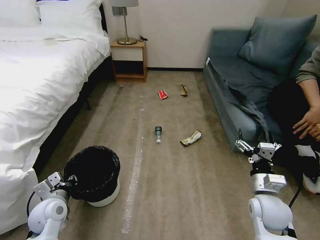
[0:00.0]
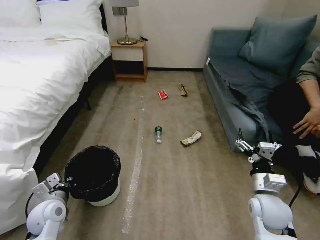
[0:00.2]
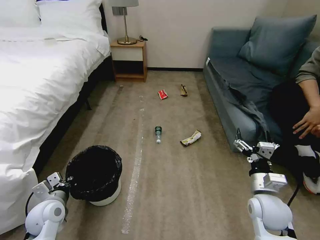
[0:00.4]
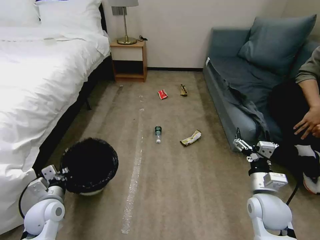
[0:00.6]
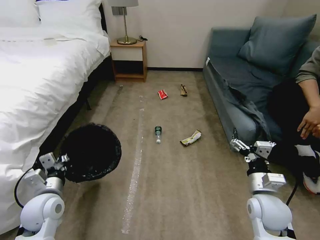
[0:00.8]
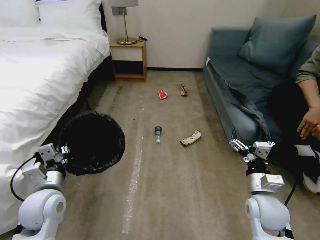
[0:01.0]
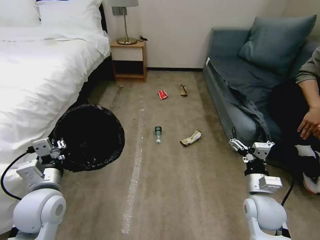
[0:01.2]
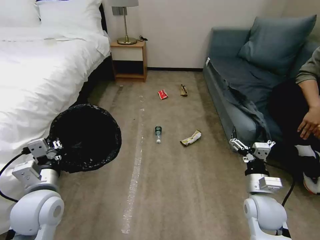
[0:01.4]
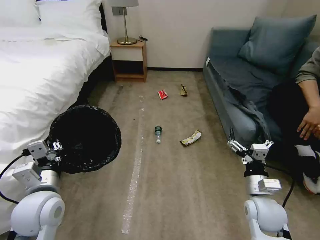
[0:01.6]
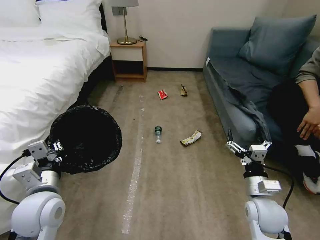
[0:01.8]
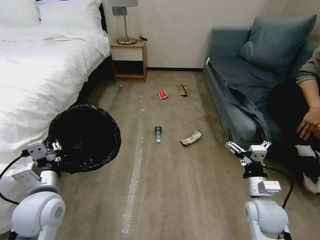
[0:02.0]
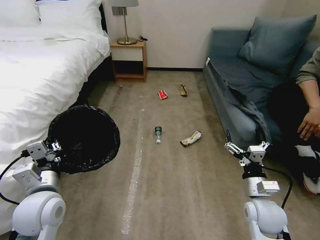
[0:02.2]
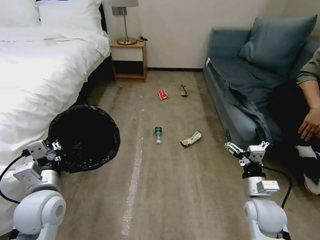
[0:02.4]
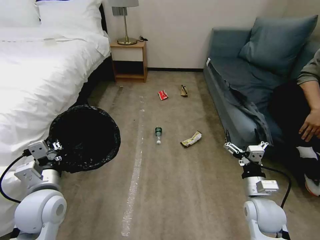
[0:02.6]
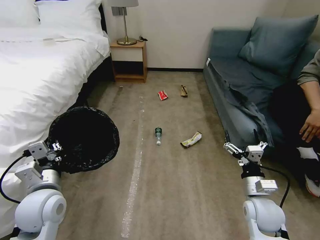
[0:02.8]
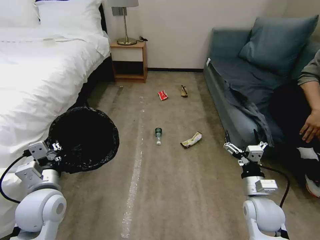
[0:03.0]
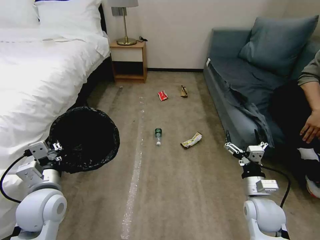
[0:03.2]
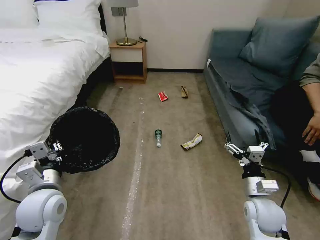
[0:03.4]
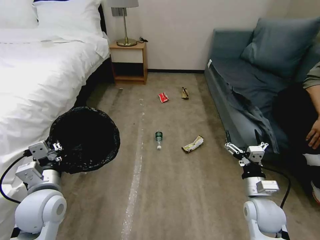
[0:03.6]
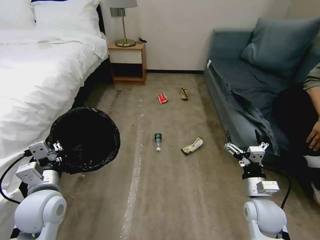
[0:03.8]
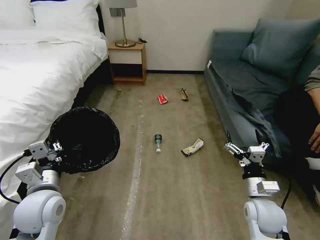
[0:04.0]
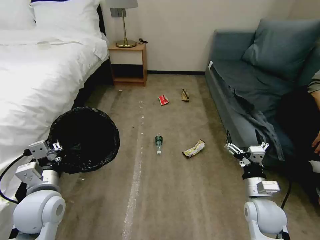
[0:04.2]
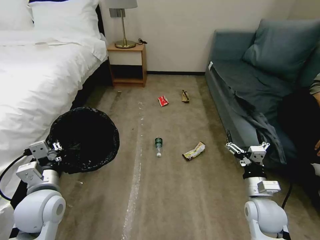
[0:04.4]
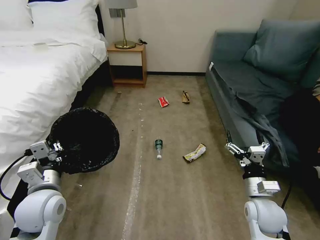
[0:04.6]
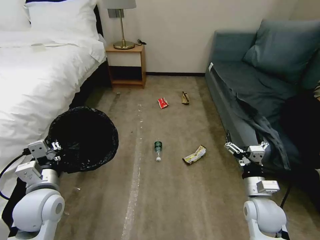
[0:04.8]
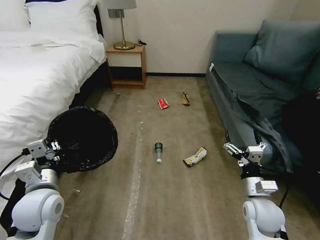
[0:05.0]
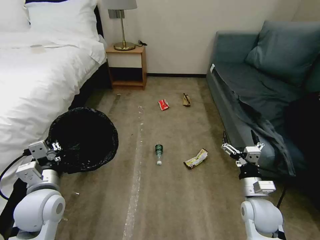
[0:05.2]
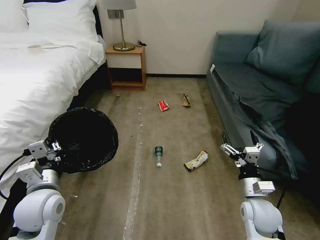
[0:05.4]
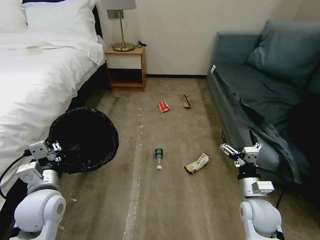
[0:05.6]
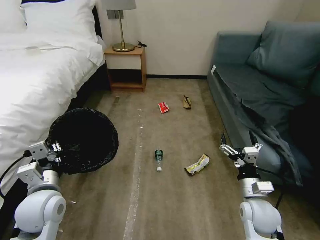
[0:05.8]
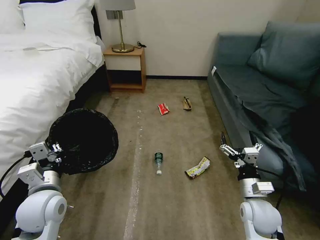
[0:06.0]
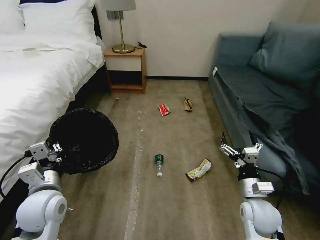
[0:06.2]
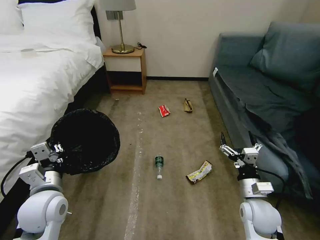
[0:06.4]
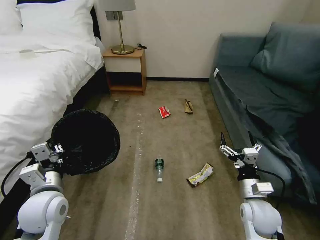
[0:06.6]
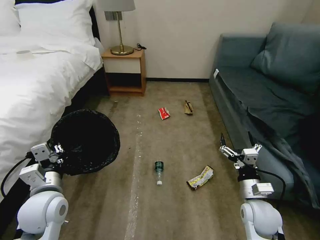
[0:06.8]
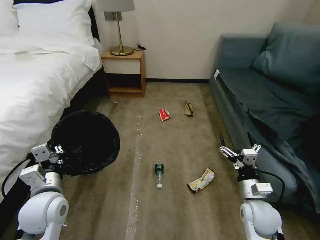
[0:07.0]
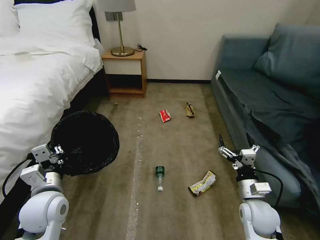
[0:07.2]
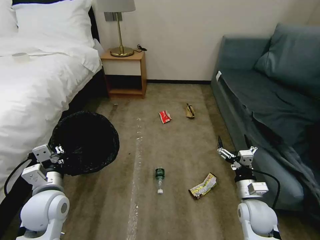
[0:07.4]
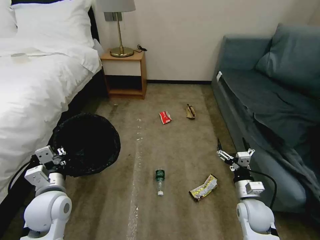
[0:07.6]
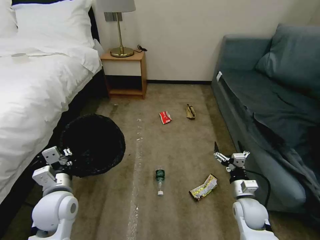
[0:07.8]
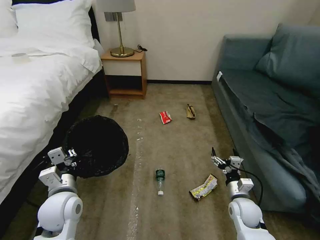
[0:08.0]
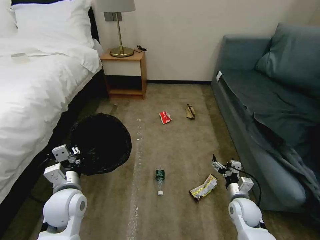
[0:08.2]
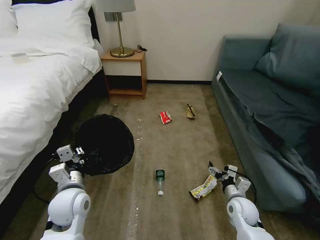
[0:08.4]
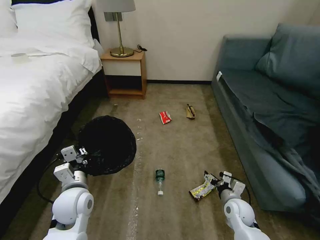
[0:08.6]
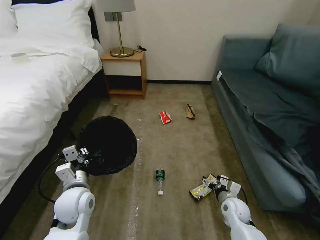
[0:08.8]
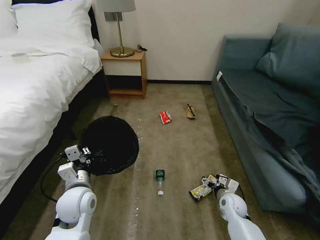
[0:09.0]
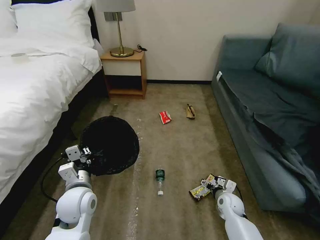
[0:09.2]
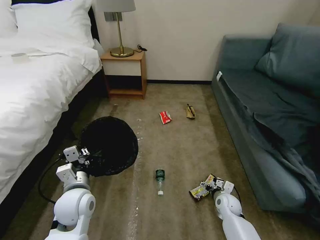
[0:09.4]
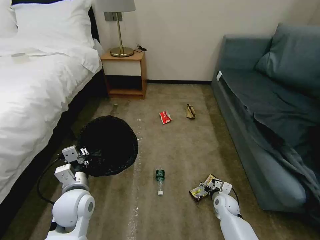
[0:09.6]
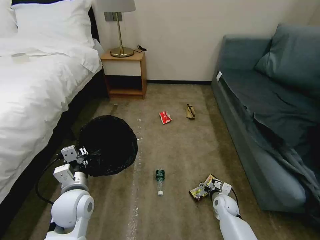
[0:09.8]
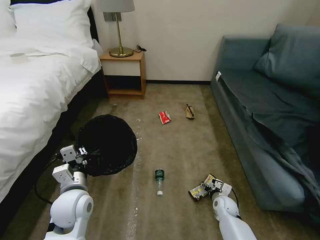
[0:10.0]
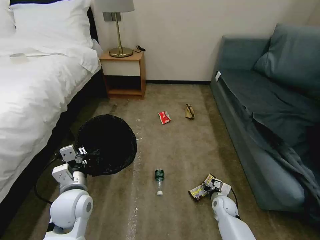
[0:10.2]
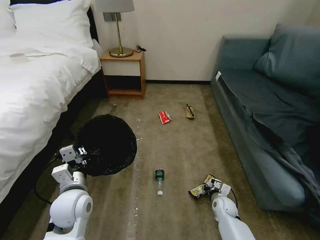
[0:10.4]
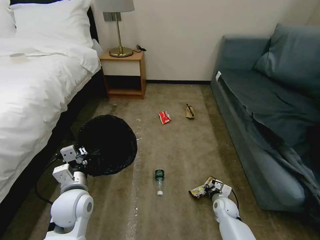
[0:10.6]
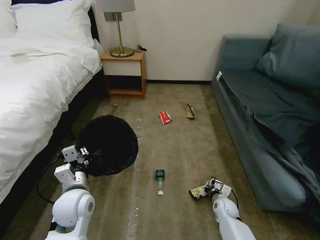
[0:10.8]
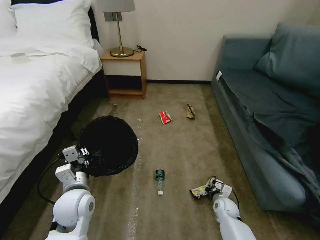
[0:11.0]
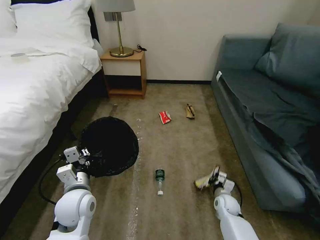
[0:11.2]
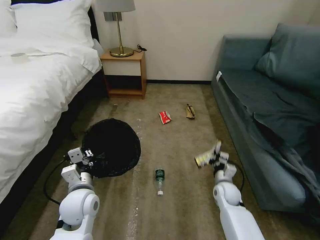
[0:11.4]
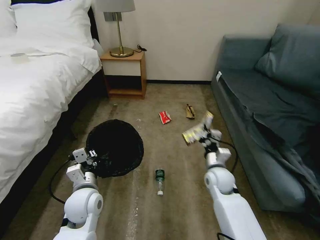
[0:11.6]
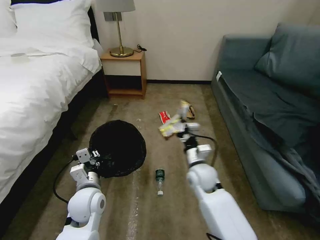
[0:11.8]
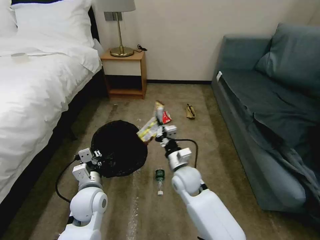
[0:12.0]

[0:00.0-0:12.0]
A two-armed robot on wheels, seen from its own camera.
Task of the whole recording: Pick up the trash bin, then pick up the garbage on the floor and place it into the trash bin.
0:00.0 to 0:01.6: The left gripper travels upward and to the right by some 15 cm.
0:01.6 to 0:03.0: The grippers make only small movements.
0:03.0 to 0:04.4: Both grippers stay put.
0:07.6 to 0:09.0: The left gripper moves to the right, about 5 cm, while the right gripper goes approximately 10 cm downward and forward.
0:09.0 to 0:10.4: The right gripper moves downward, some 5 cm, and closes.
0:10.4 to 0:12.0: The right gripper shifts some 30 cm upward and to the left, and closes up, while the left gripper moves about 5 cm.

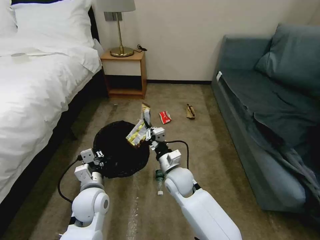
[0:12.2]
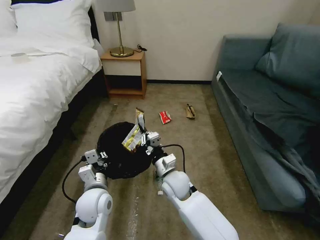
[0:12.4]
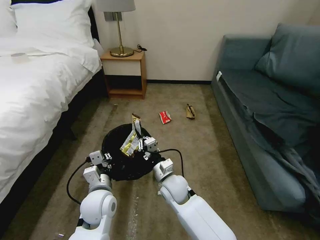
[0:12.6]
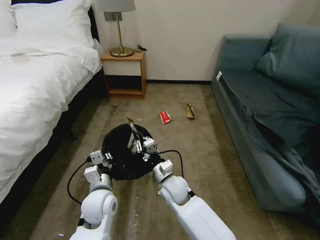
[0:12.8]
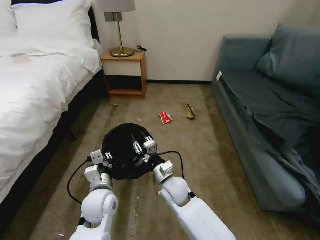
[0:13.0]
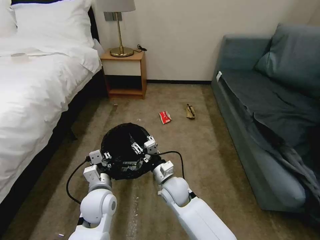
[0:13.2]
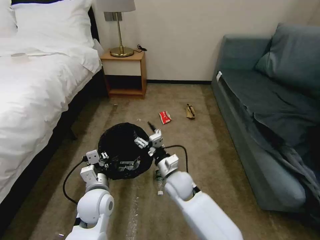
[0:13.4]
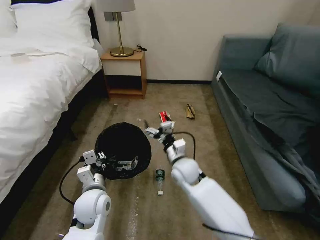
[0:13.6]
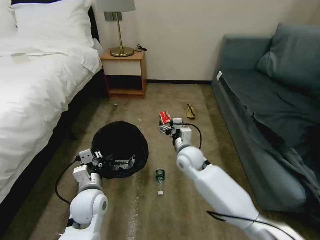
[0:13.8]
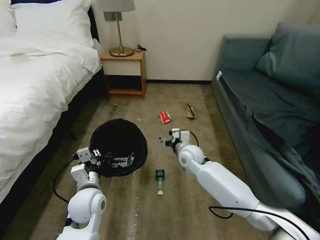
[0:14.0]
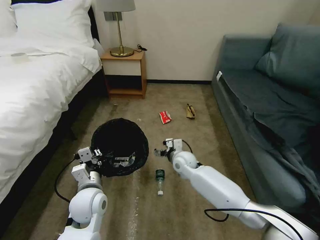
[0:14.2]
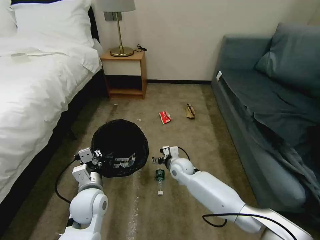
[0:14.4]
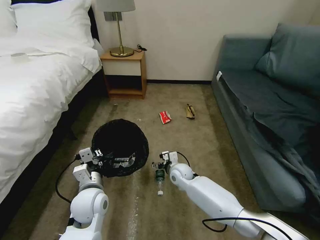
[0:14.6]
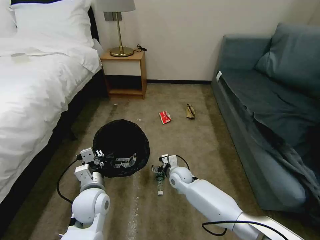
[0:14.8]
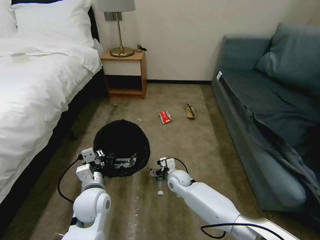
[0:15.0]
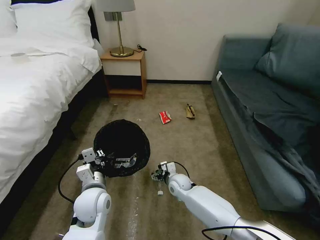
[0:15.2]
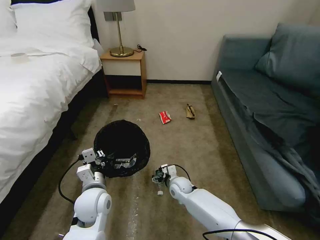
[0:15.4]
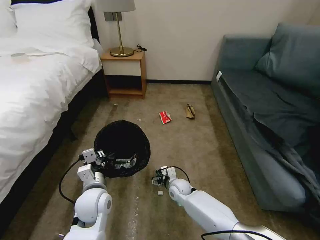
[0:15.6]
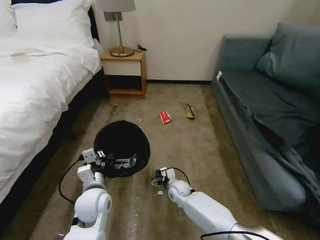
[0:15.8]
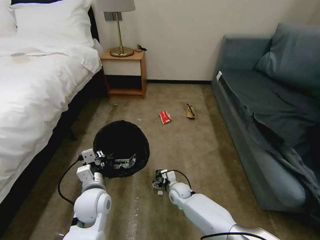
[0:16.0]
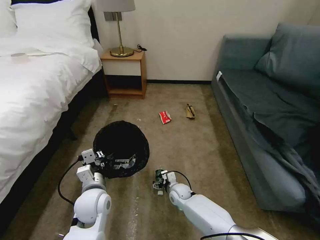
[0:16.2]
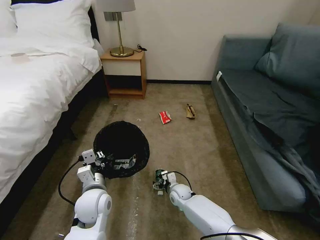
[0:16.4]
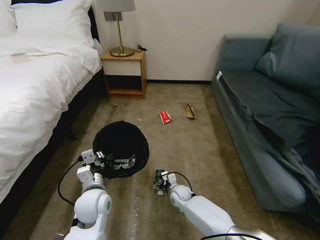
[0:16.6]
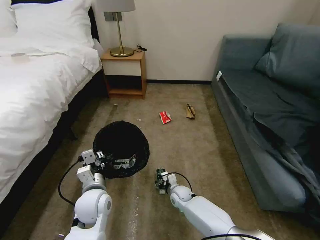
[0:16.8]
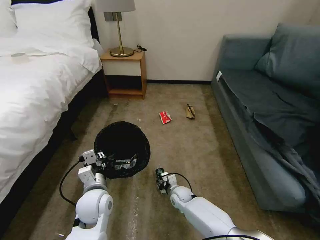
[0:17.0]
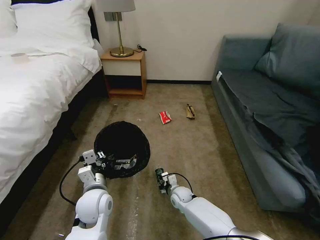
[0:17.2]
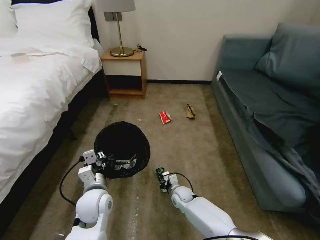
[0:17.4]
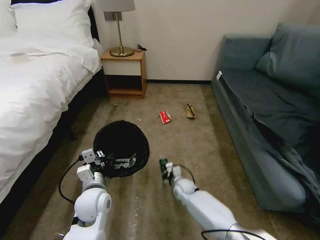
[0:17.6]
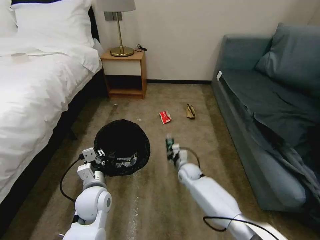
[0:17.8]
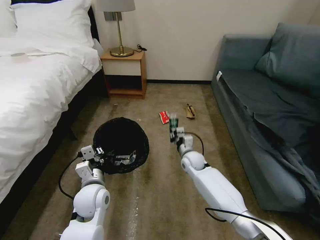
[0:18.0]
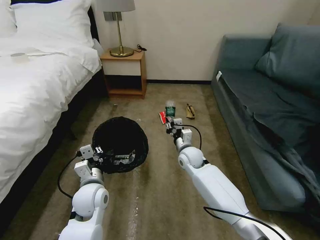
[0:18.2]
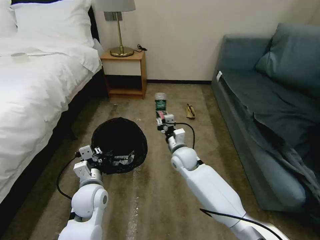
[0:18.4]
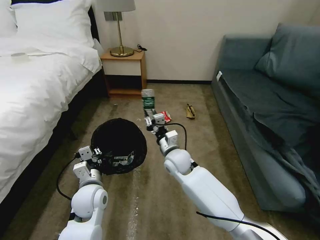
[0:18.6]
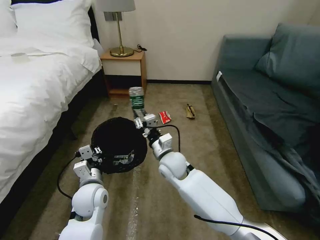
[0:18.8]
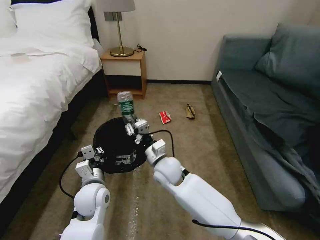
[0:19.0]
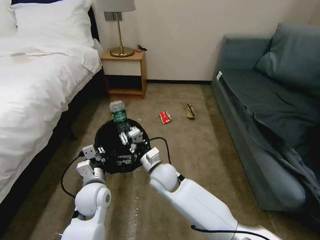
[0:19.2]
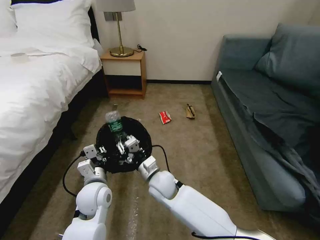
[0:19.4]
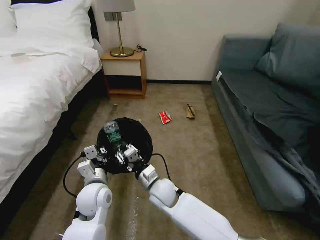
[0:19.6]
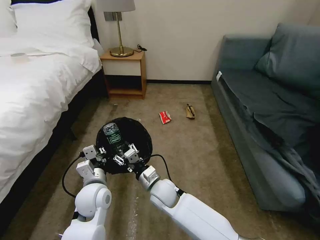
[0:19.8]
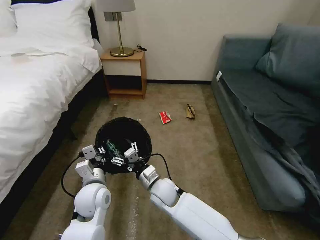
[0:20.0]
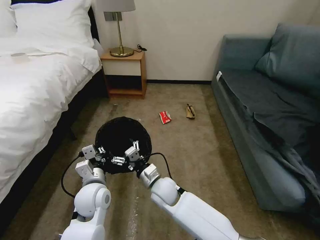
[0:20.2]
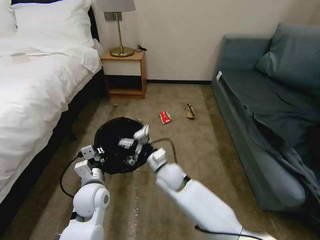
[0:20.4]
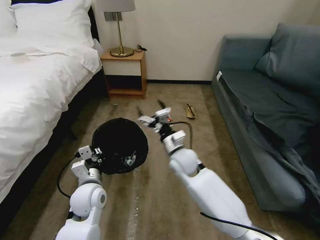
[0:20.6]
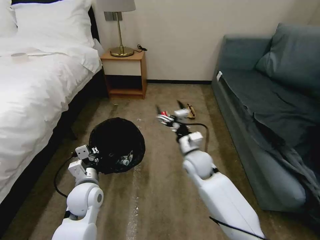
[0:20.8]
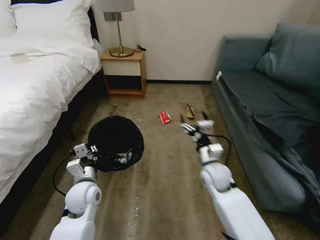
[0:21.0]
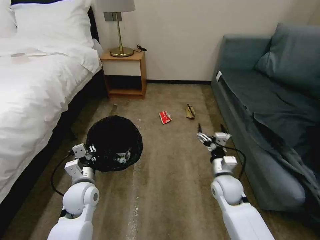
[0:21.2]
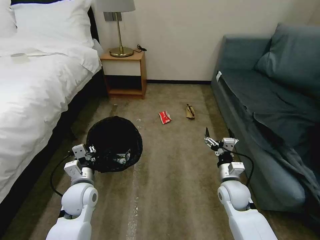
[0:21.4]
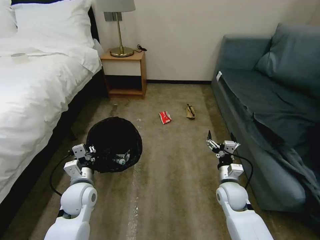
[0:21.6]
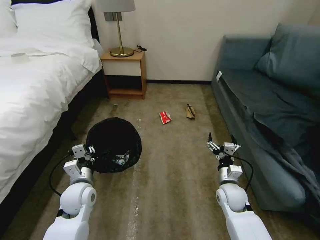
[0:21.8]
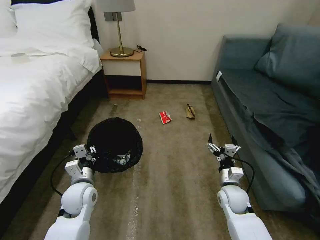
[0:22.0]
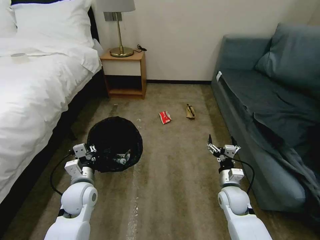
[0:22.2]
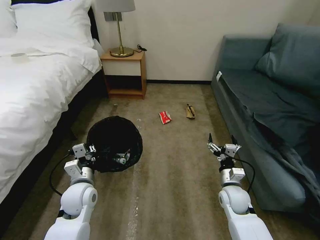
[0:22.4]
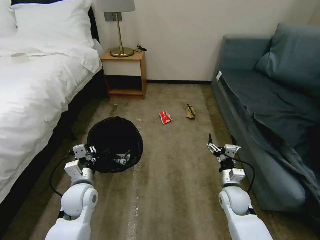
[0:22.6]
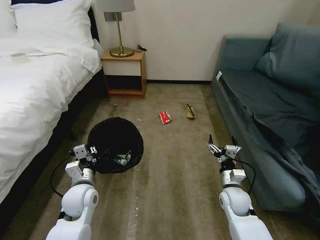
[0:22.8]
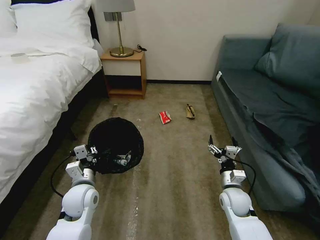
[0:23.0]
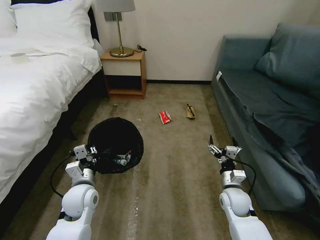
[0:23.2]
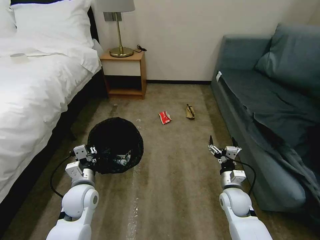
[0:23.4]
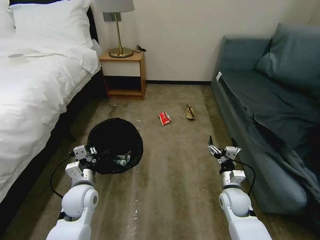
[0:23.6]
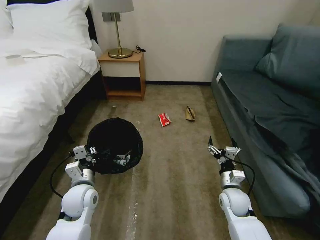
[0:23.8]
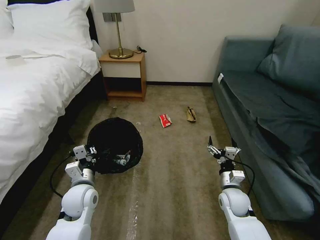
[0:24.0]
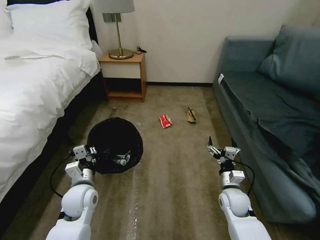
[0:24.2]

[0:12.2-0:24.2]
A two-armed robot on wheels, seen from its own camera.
Task of the whole recording: Pick up the trash bin, then pick up the garbage on the floor and place it into the trash bin.
0:12.2 to 0:13.8: The right gripper travels forward by some 10 cm, and opens its fingers.
0:13.8 to 0:15.2: The right gripper moves downward, some 15 cm.
0:15.2 to 0:16.6: The right gripper moves downward, some 5 cm.
0:16.6 to 0:18.2: The right gripper heads upward, covering roughly 20 cm, and closes its fingers.
0:18.2 to 0:19.8: The right gripper shifts roughly 15 cm backward and to the left.
0:19.8 to 0:21.2: The left gripper moves some 5 cm. Meanwhile the right gripper heads to the right, covering some 25 cm, and opens its fingers.
0:21.2 to 0:22.6: The right gripper ends up roughly 5 cm from where it was.
0:22.6 to 0:24.2: Neither gripper changes place.
